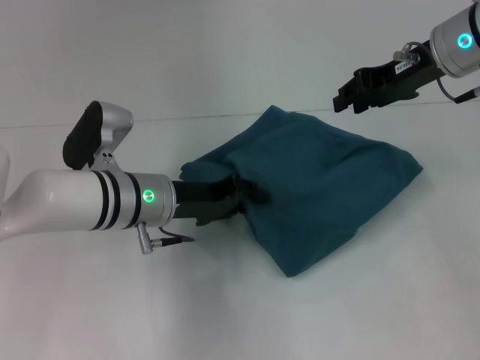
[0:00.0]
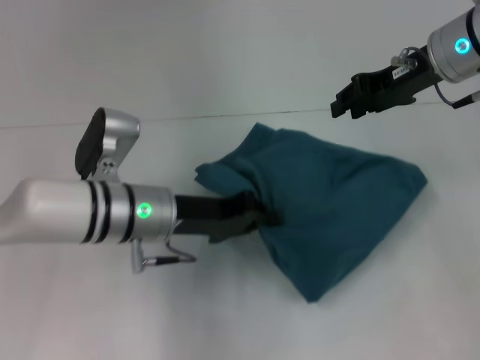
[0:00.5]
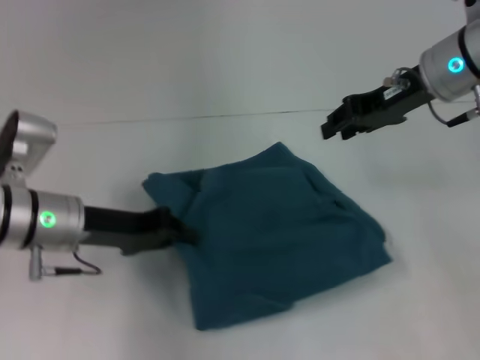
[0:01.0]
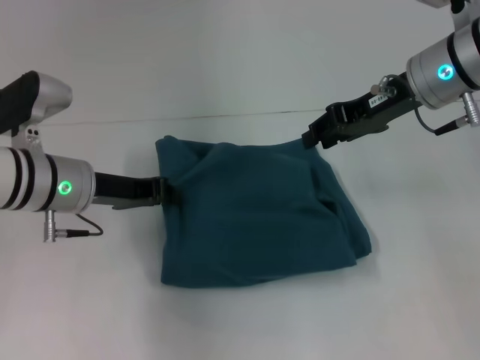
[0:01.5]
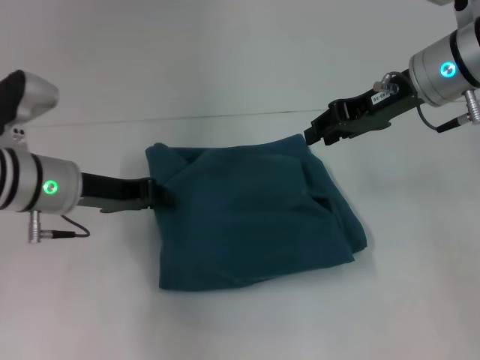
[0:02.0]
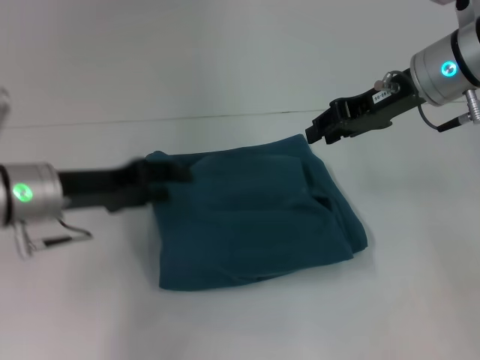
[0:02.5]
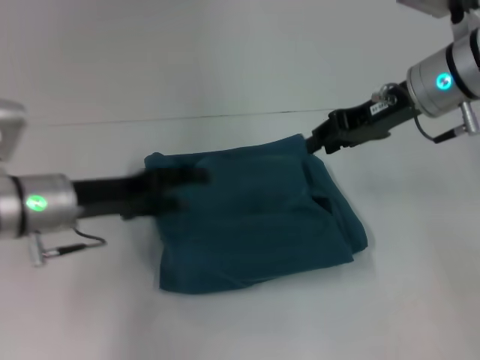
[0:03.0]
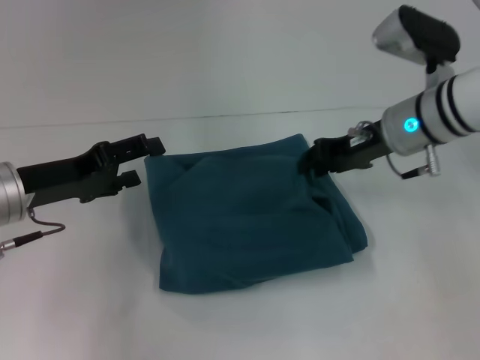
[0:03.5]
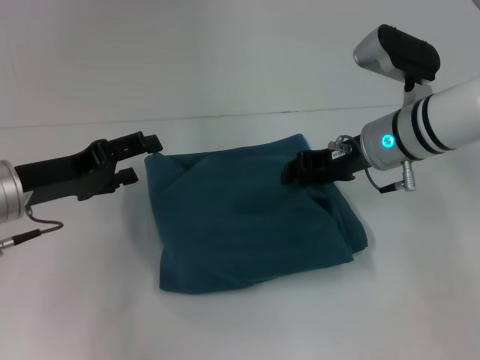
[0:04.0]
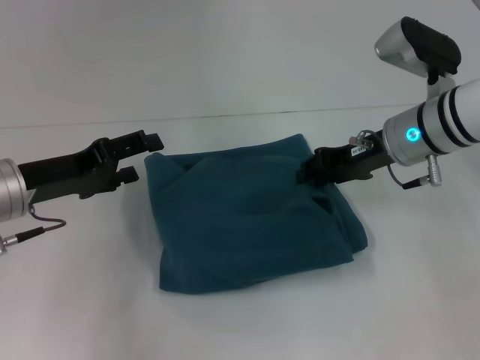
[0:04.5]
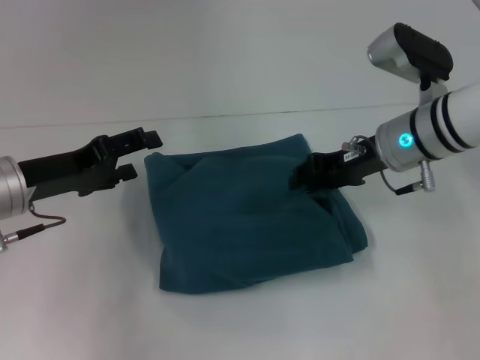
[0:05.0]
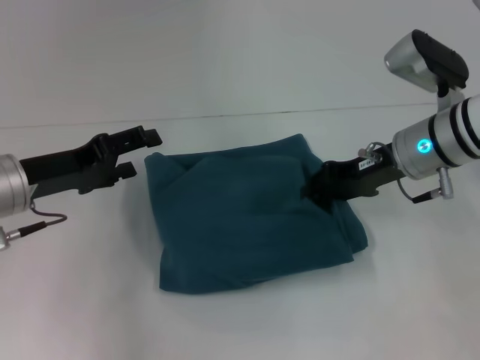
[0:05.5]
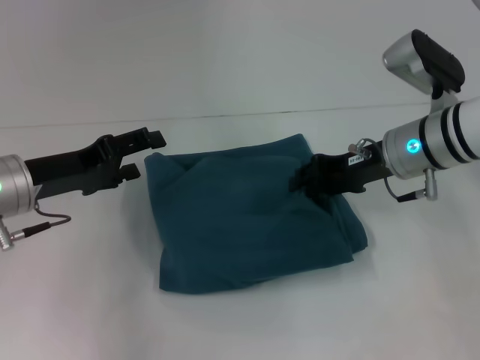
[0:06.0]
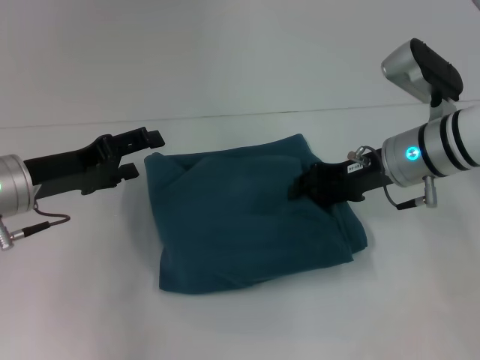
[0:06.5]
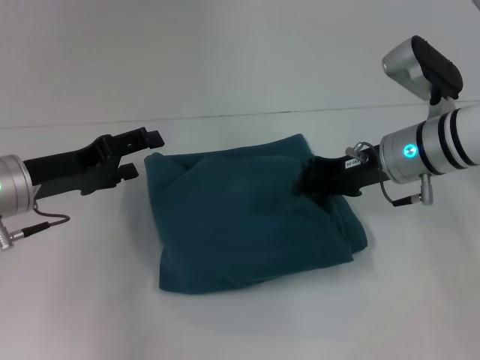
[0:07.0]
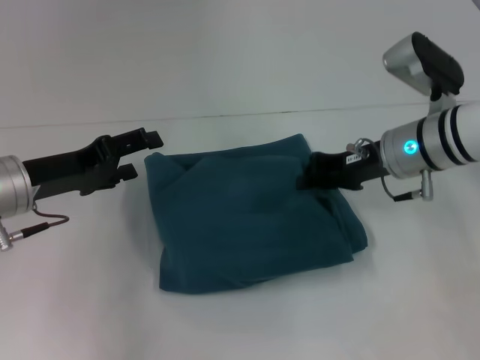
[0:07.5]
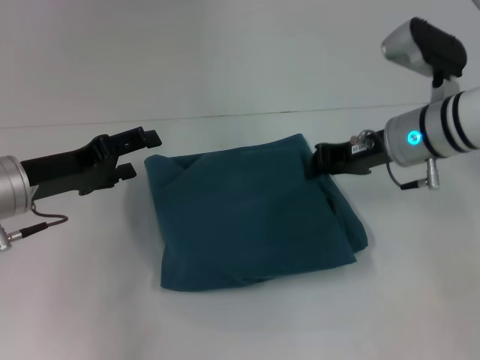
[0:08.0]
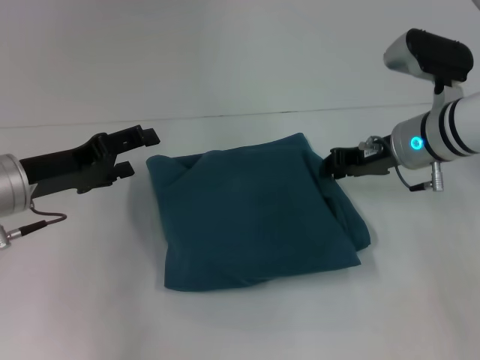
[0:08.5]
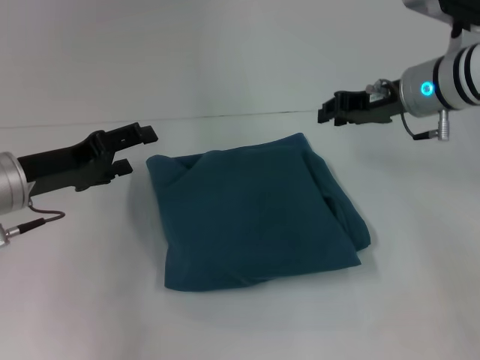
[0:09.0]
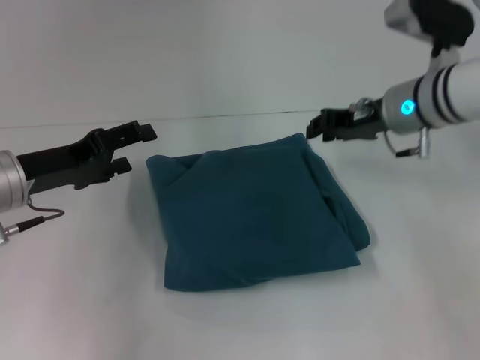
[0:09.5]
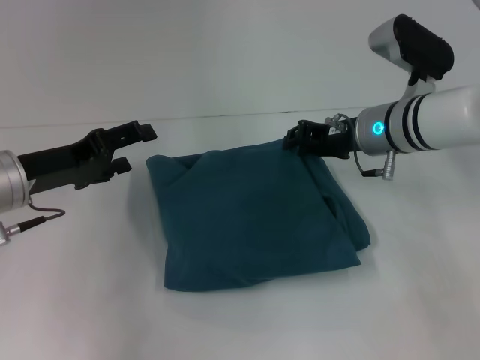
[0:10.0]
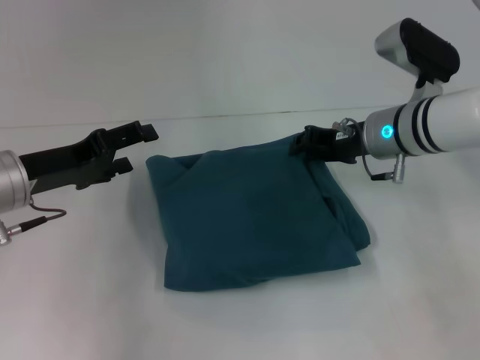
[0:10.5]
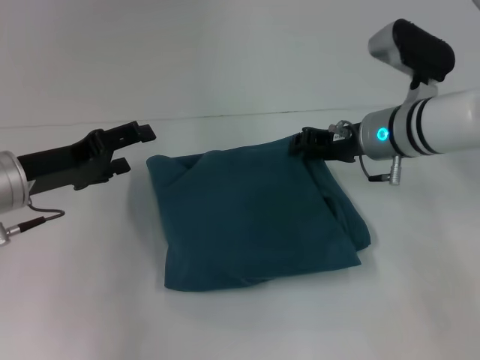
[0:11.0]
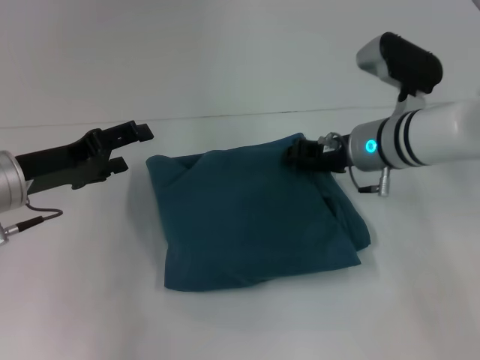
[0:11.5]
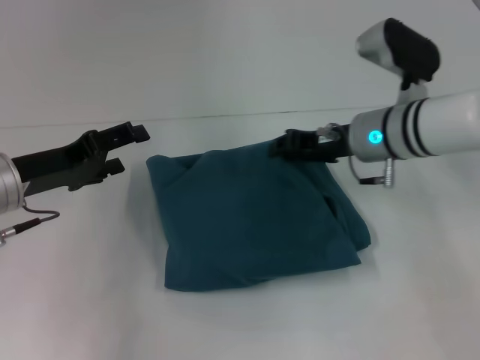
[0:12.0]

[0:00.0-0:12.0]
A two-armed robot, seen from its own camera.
0:00.0 to 0:02.0: The left gripper is displaced to the left by some 10 cm, and closes its fingers.
0:02.0 to 0:04.0: The right gripper goes some 10 cm downward. Meanwhile the left gripper changes place by about 5 cm, and opens its fingers.
0:04.0 to 0:12.0: The grippers stay close to where they were, moving slightly.

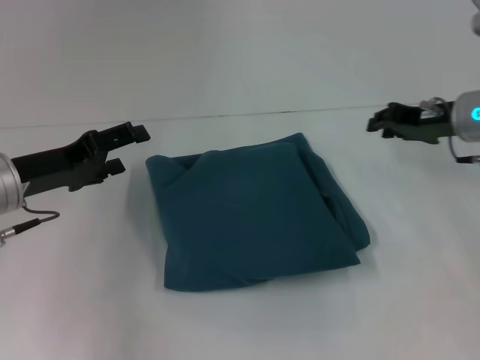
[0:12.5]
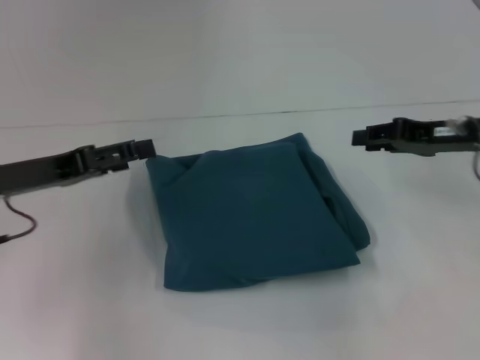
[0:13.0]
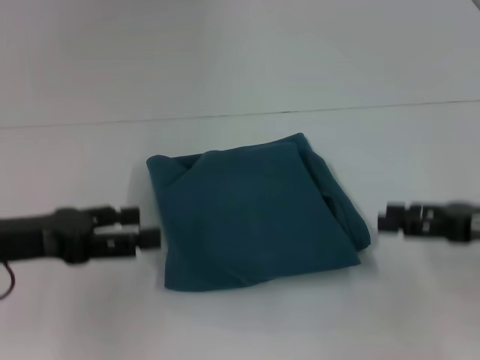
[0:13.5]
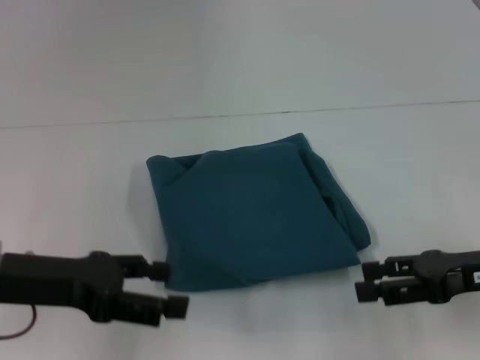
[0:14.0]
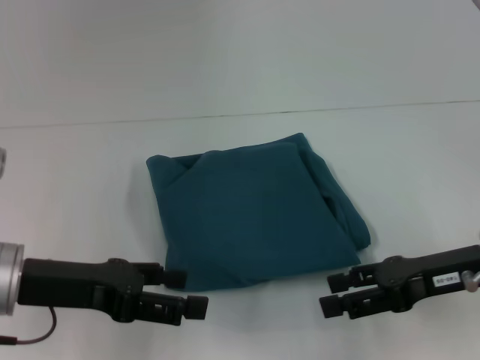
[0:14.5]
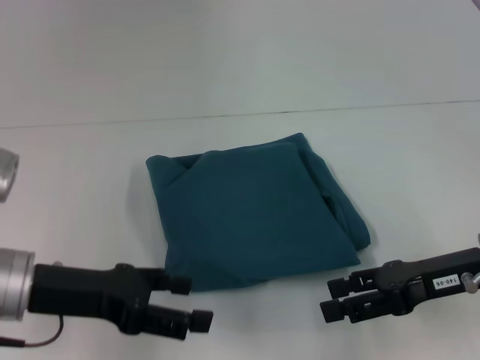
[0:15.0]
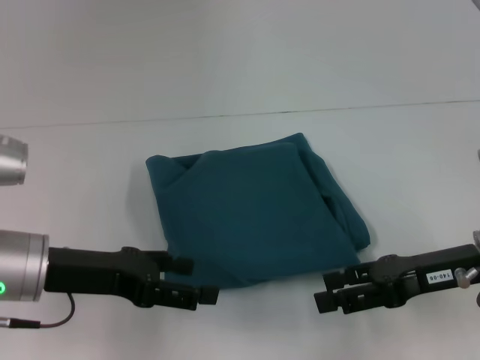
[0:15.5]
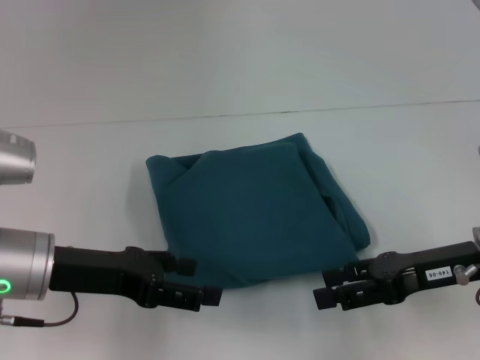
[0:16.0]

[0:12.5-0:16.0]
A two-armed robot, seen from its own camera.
0:12.5 to 0:14.5: The left gripper shifts roughly 5 cm backward. Meanwhile the right gripper moves backward, some 15 cm, and opens.
0:14.5 to 0:16.0: The grippers make only small movements.

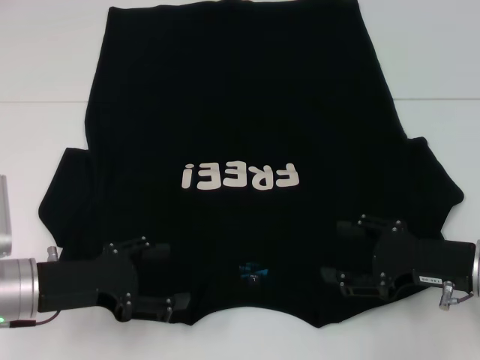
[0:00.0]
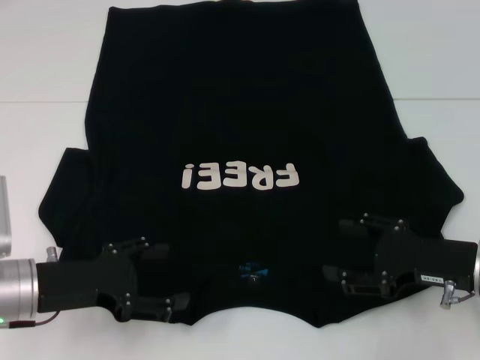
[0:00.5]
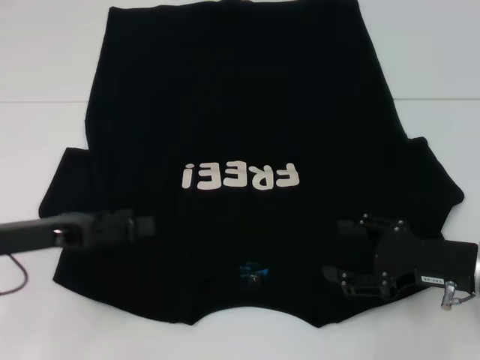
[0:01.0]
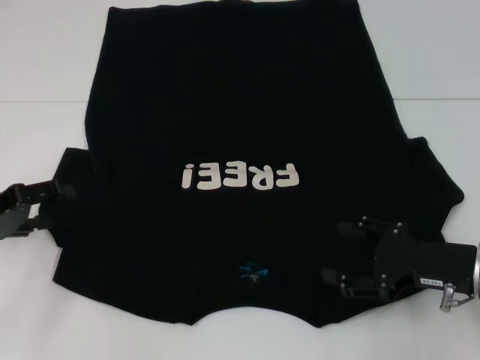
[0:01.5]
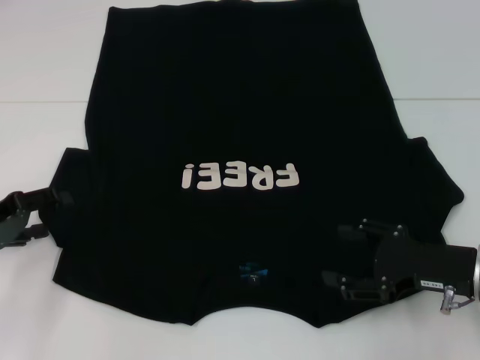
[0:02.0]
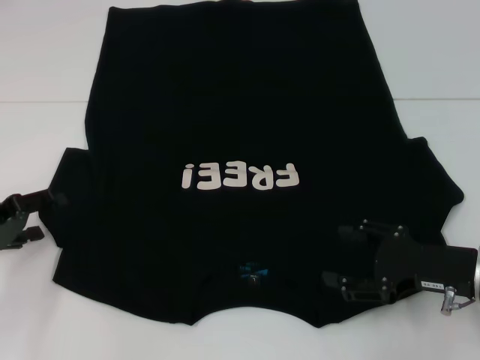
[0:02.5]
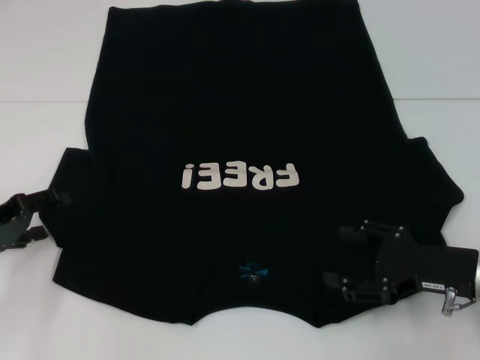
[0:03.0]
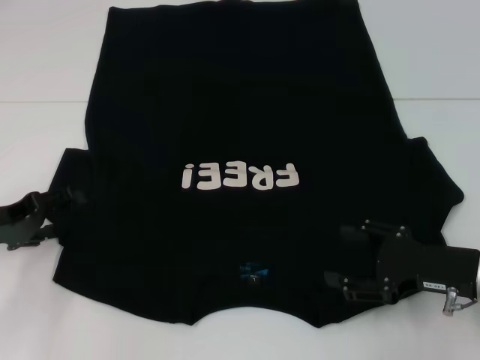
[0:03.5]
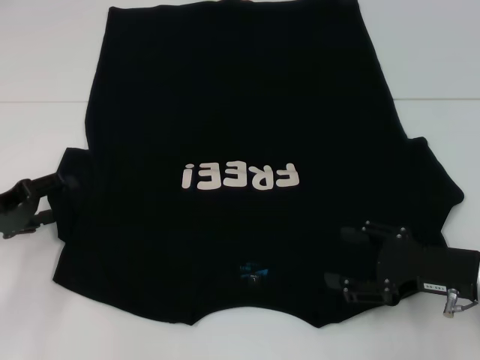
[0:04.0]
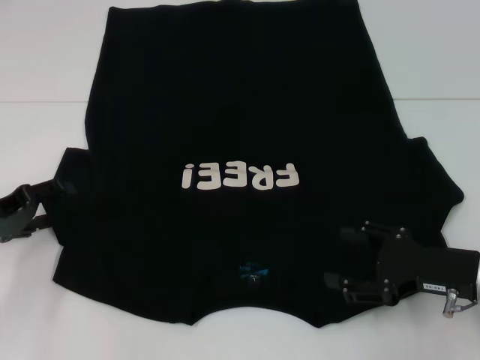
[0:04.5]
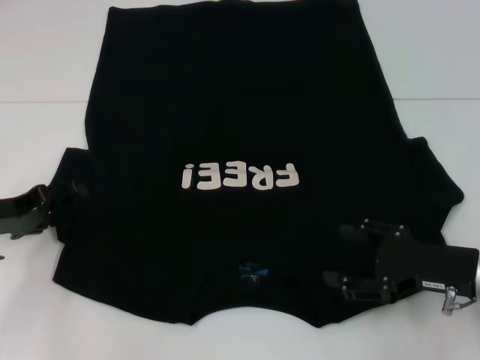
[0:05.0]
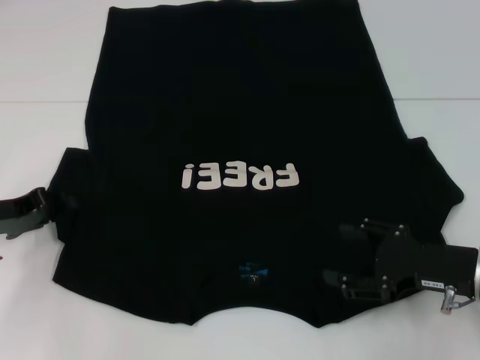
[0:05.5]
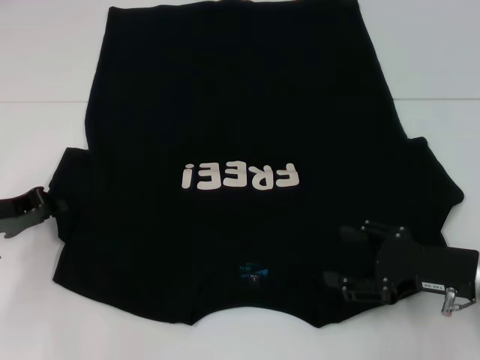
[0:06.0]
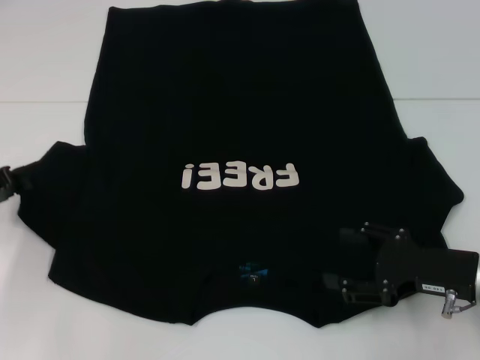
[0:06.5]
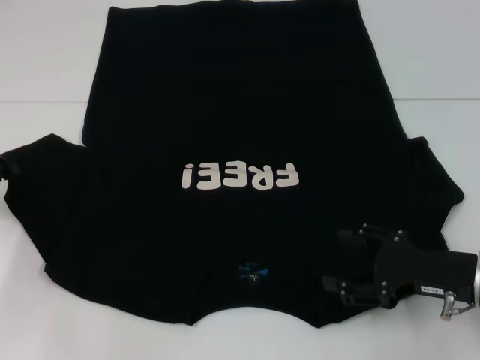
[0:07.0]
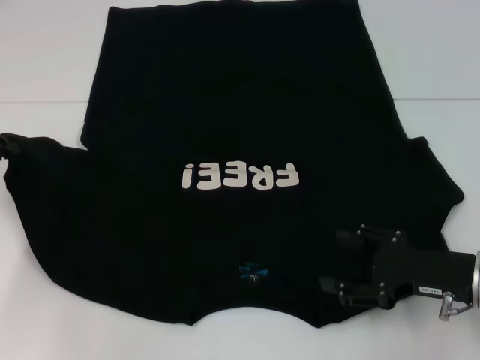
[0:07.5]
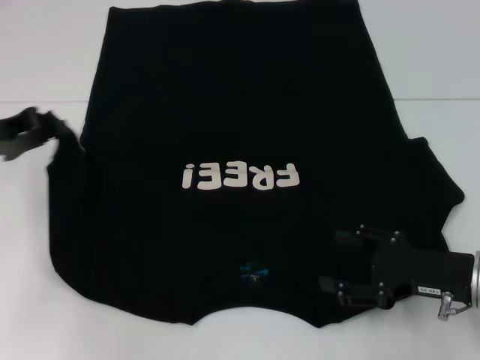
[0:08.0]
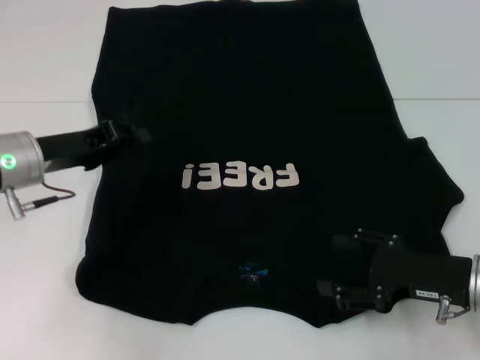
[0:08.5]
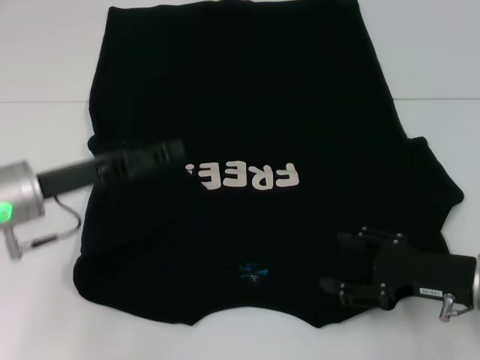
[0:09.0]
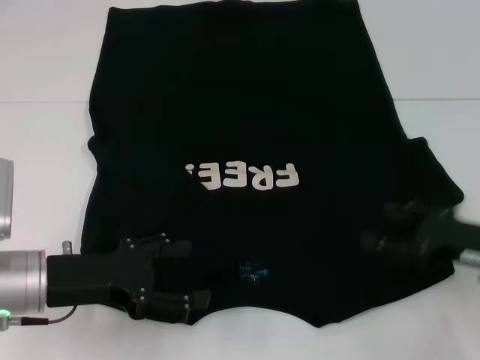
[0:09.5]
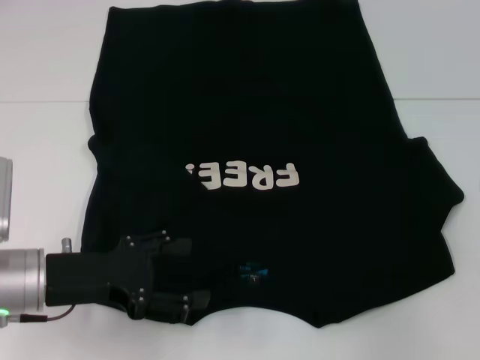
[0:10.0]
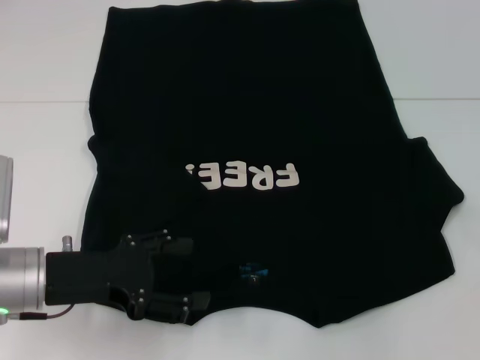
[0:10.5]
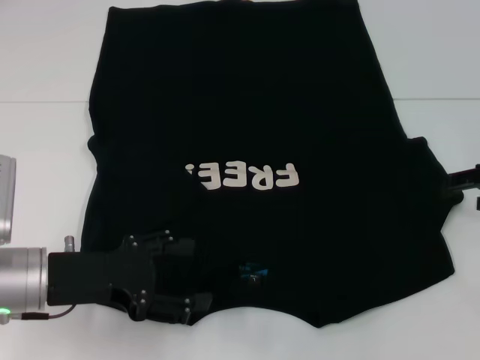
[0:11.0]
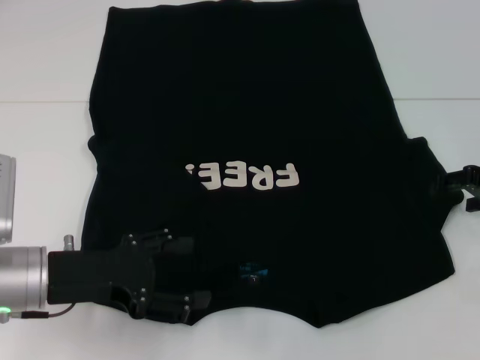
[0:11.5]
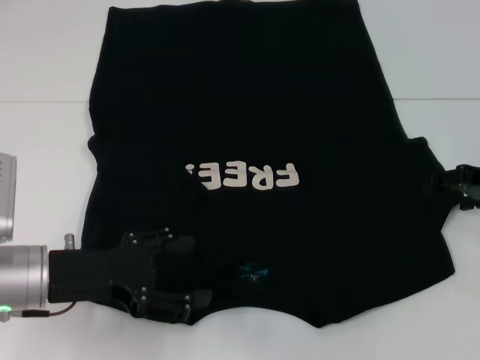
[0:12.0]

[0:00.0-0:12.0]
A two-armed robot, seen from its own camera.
Step, 0:00.0 to 0:08.5: Fold the bottom left sleeve with your left hand.
0:00.0 to 0:02.0: The left gripper travels to the left by some 10 cm.
0:02.0 to 0:04.0: The grippers make only small movements.
0:04.0 to 0:06.0: The left gripper closes.
0:06.0 to 0:08.0: The left gripper is displaced upward by some 5 cm.
0:08.0 to 0:10.0: The left gripper moves backward, to the right and downward, some 15 cm, and opens its fingers; the right gripper is displaced upward and to the right by approximately 15 cm.
0:10.0 to 0:12.0: The right gripper moves forward, downward and to the left, approximately 10 cm.
